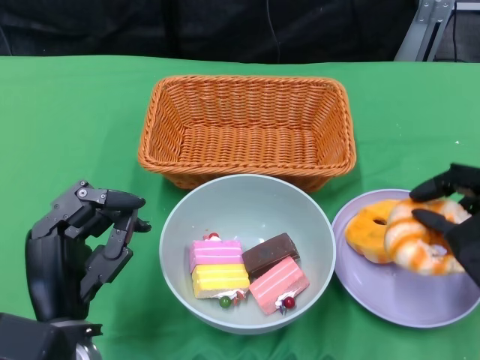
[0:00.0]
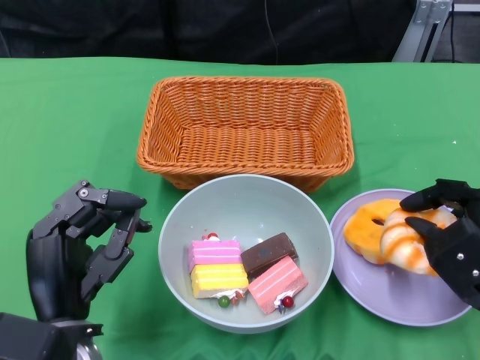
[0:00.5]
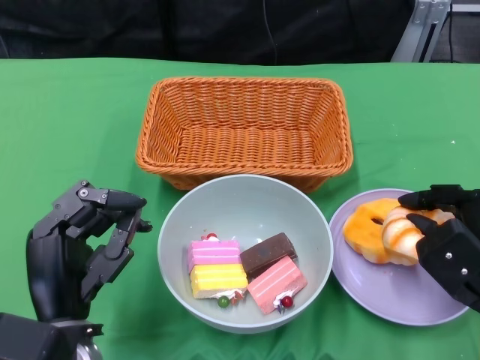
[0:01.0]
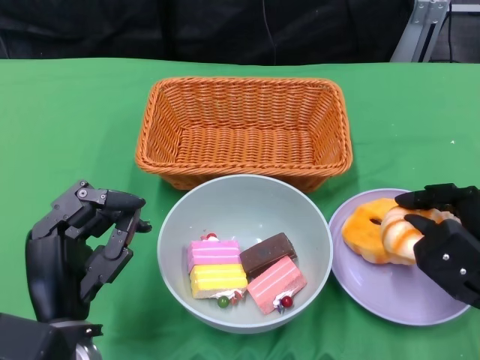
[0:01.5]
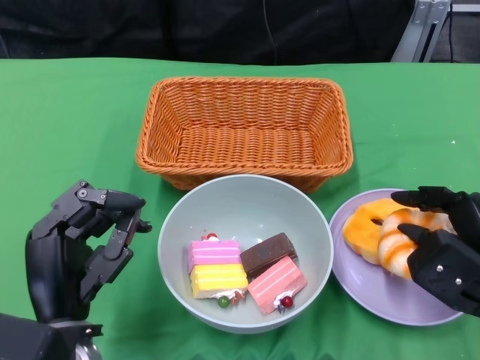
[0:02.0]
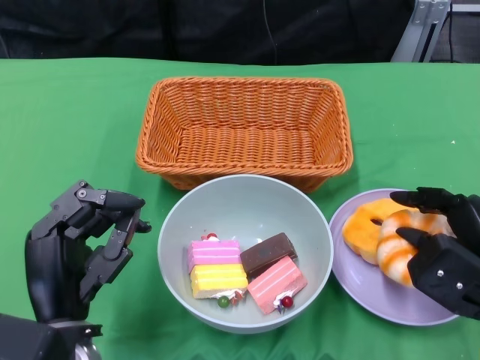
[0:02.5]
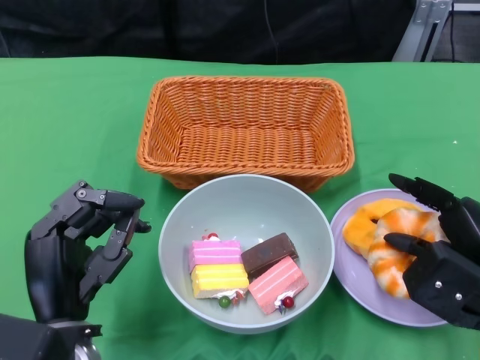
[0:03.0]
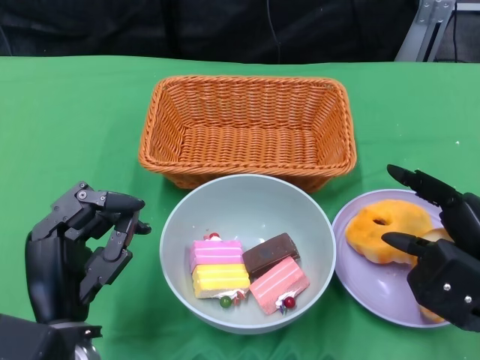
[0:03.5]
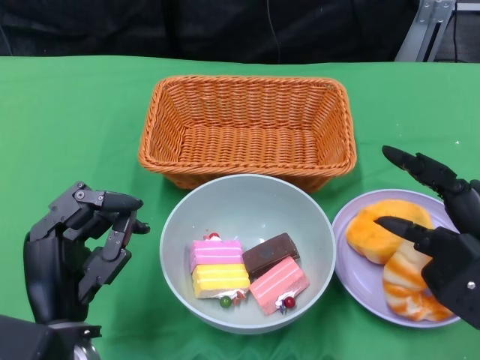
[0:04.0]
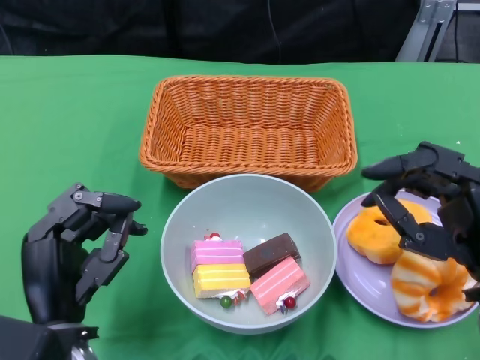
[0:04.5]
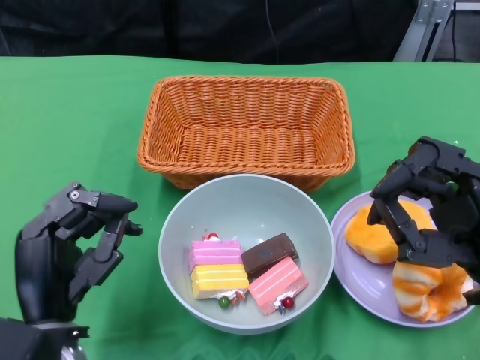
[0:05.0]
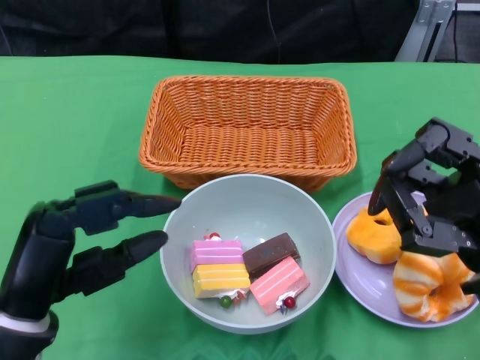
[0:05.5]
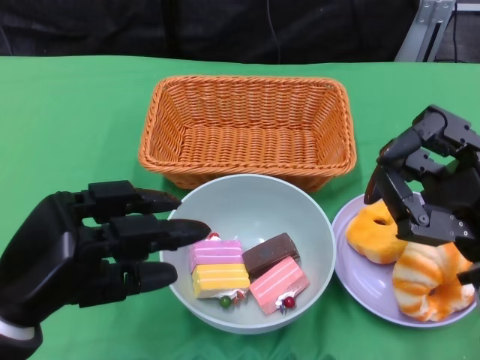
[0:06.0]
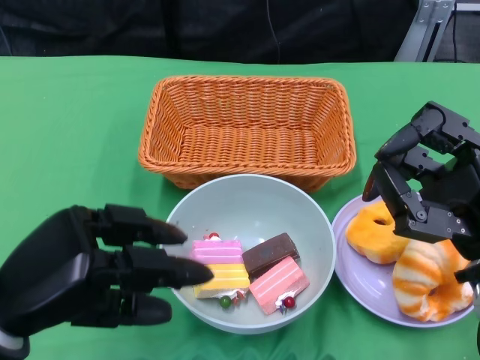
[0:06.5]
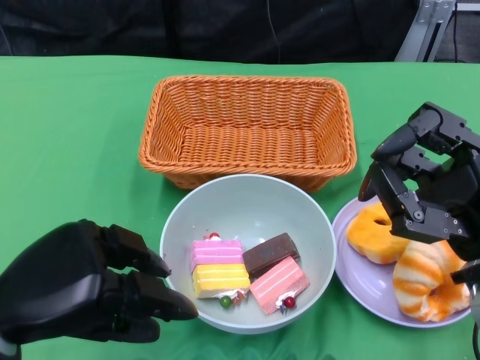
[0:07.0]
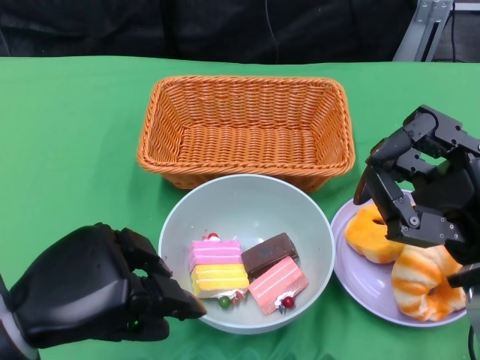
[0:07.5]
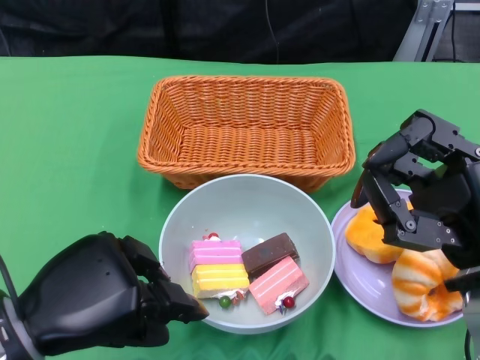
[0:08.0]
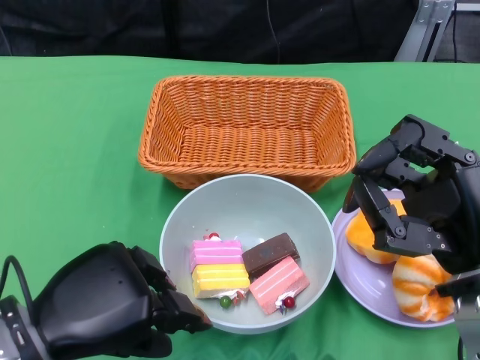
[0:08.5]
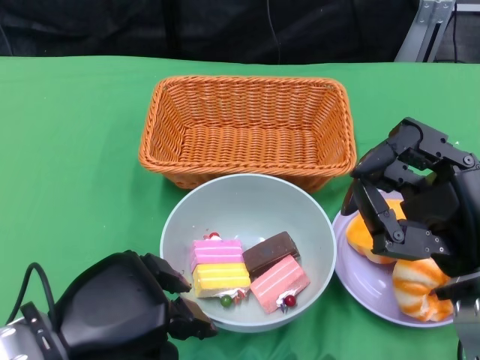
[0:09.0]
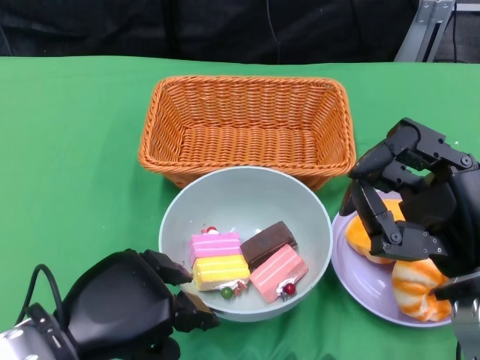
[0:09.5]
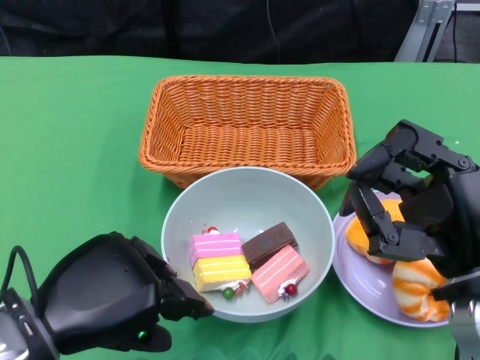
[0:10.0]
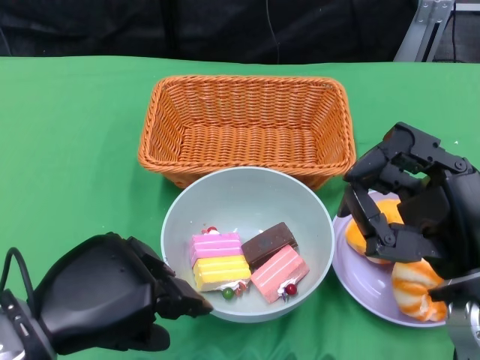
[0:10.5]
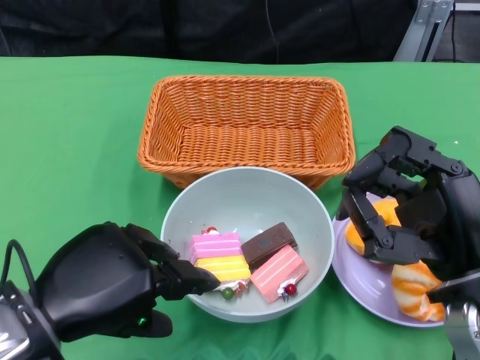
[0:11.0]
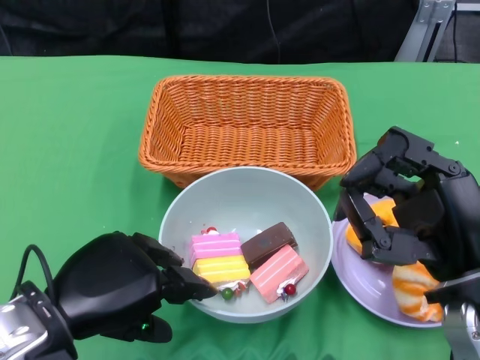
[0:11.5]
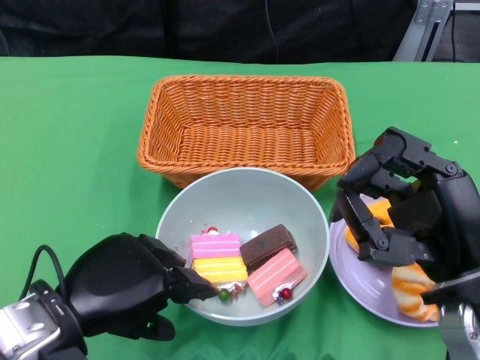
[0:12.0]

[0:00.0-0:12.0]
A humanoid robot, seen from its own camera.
Step, 0:00.0 to 0:04.5: Pick up the bread with the right gripper and place it on the plate.
0:00.0 to 0:02.0: The hands make only small movements.
0:02.0 to 0:04.0: The right hand travels upward by approximately 5 cm.
0:04.0 to 0:06.0: The left hand heads upward and to the left, covering some 10 cm.
0:08.0 to 0:12.0: The hands make only small movements.

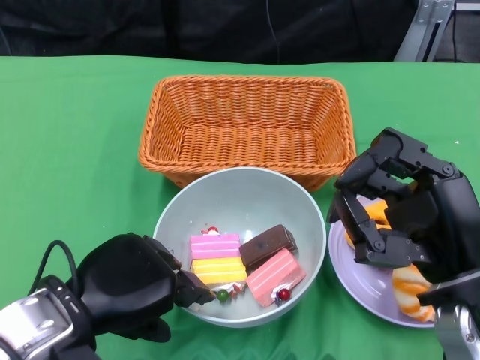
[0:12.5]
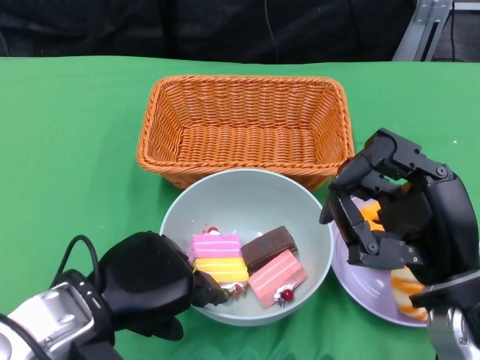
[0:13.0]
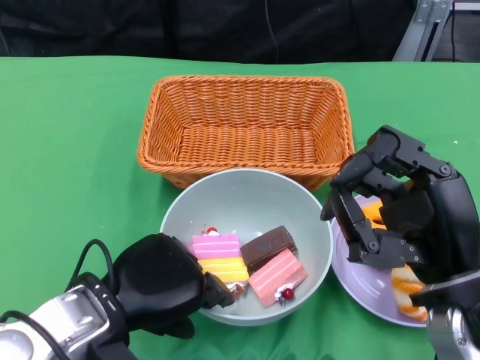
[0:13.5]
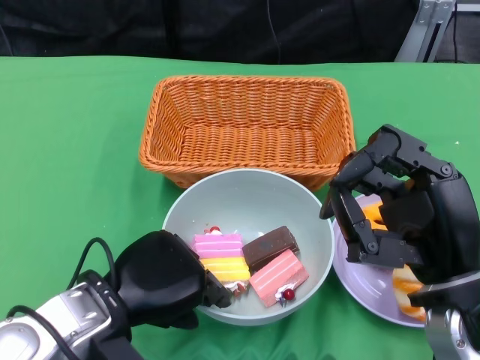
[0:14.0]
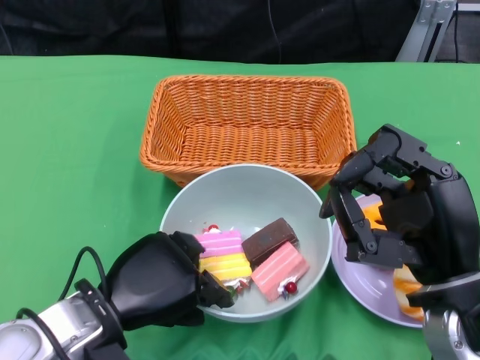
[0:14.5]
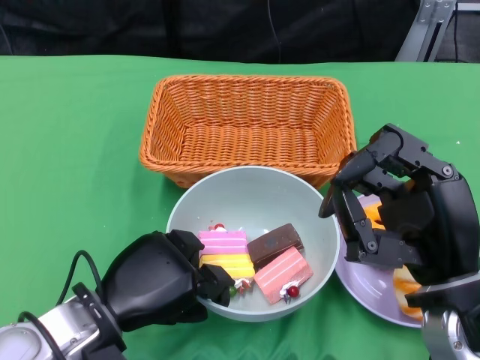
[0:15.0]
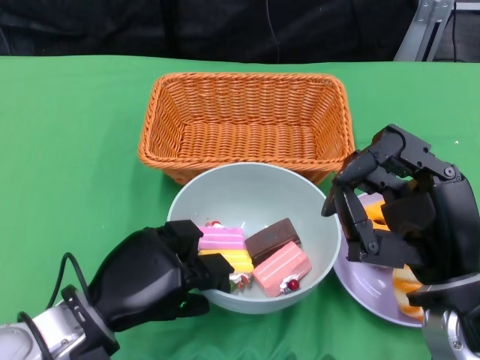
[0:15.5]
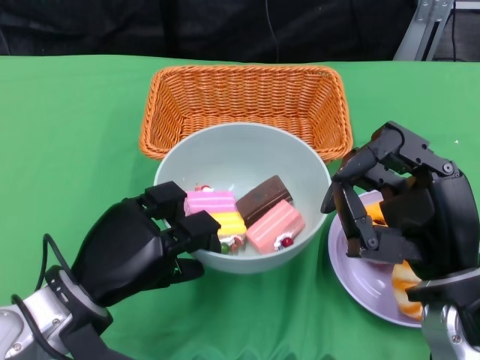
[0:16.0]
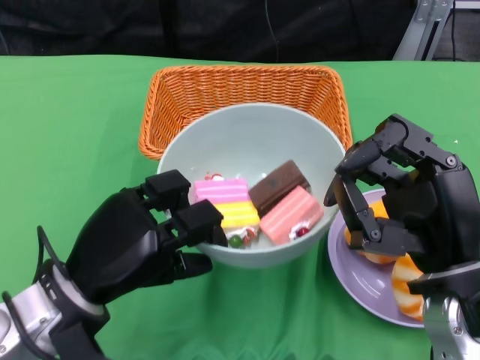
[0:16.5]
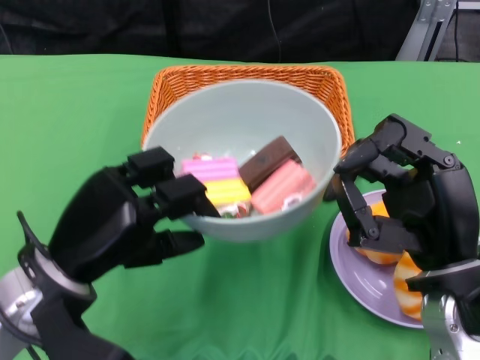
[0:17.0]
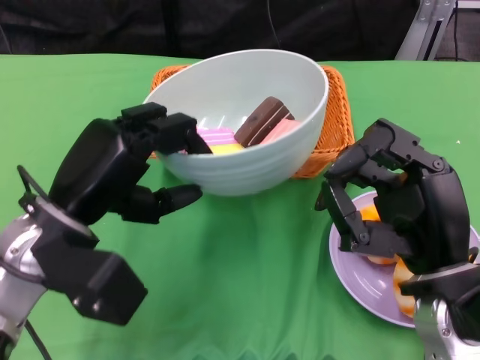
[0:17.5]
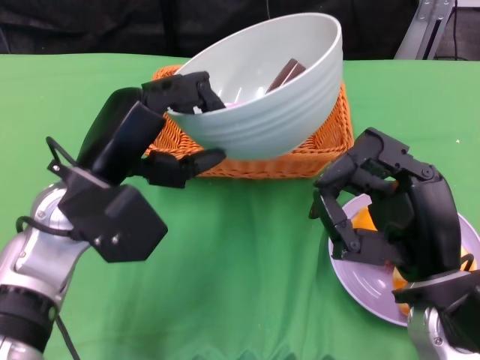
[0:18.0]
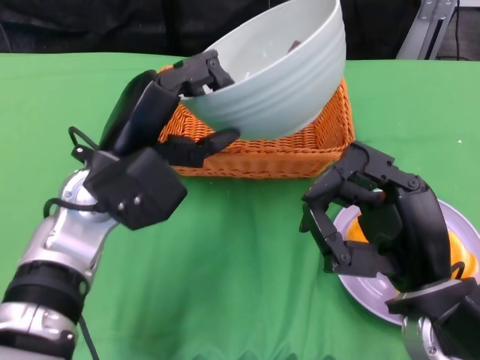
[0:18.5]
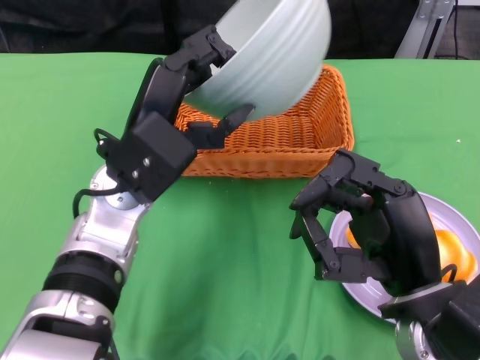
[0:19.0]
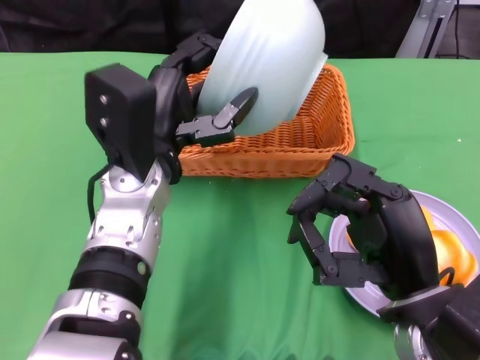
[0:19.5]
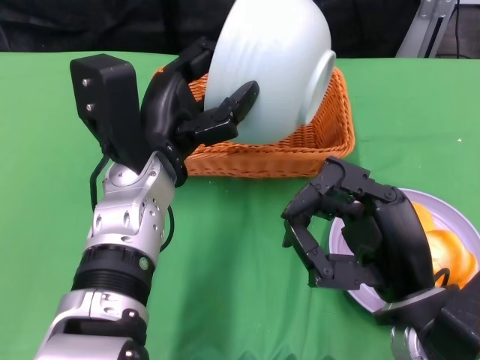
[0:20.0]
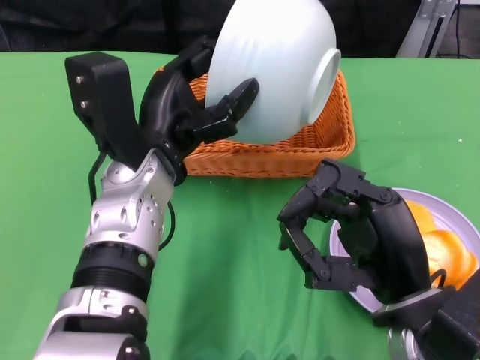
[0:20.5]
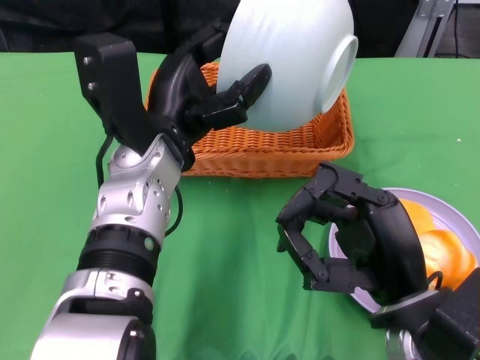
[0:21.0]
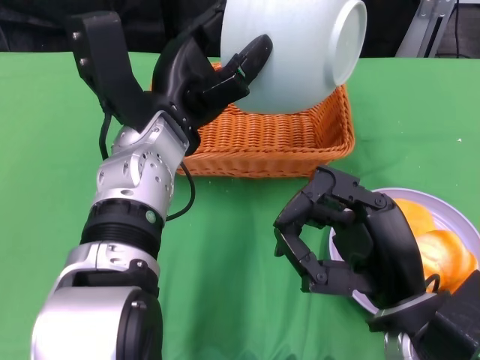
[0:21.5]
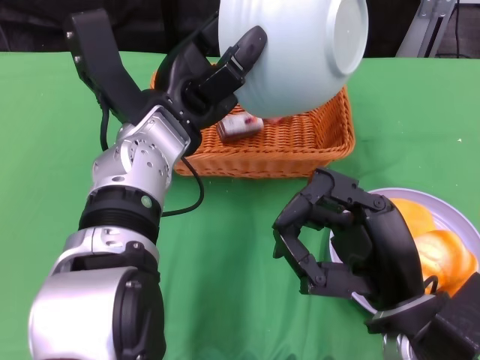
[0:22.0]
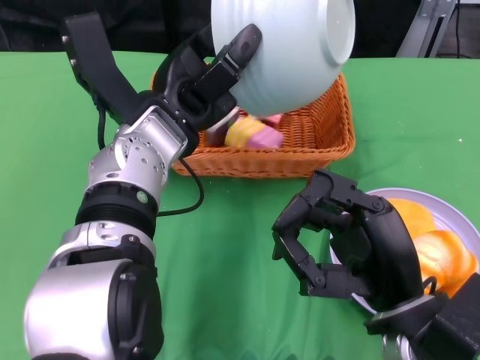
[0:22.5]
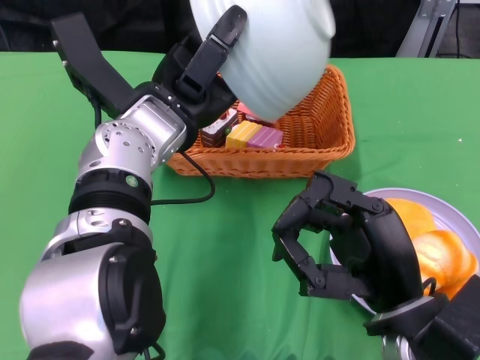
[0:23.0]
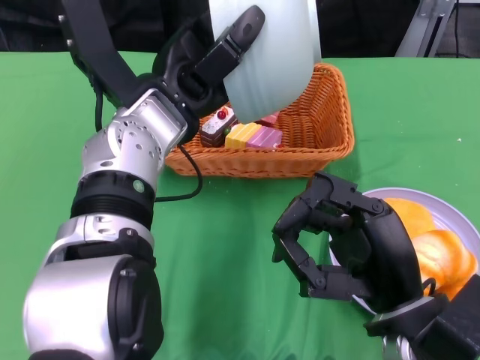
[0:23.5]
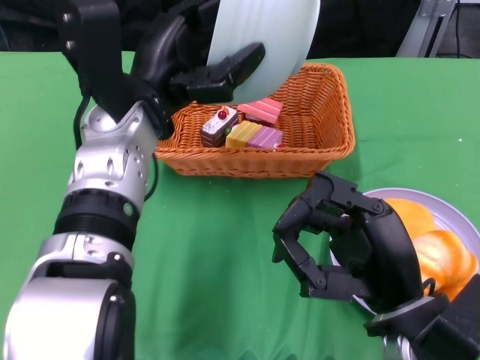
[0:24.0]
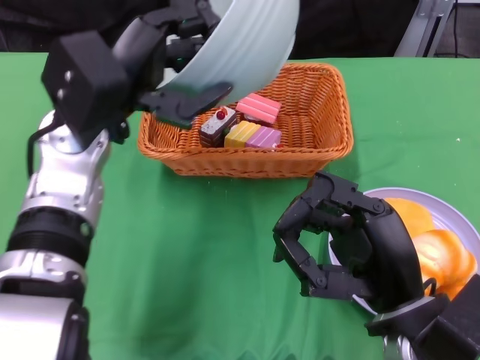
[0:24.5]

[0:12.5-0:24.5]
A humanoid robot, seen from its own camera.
Step, 0:14.5 to 0:23.5: Pour the cake into the basket with the left gripper.
0:12.5 to 0:14.5: The left hand shifts by some 5 cm.
0:16.5 to 0:18.5: The left hand shifts roughly 10 cm forward and upward.
0:22.5 to 0:24.5: The left hand travels to the left by roughly 5 cm.

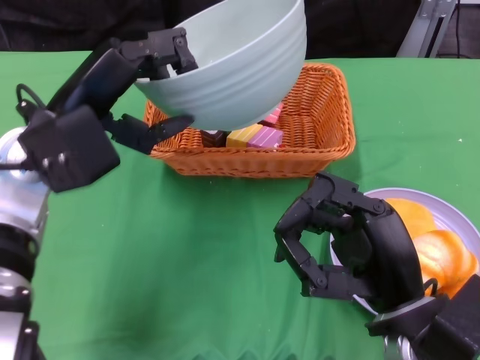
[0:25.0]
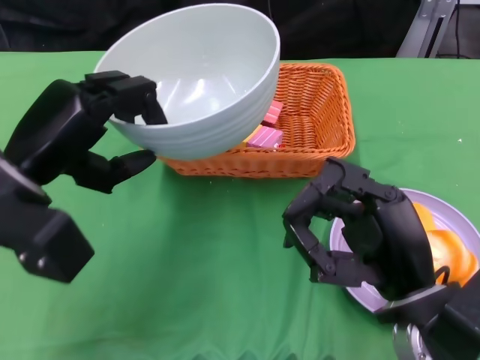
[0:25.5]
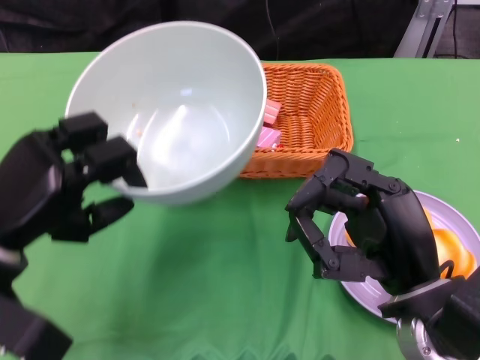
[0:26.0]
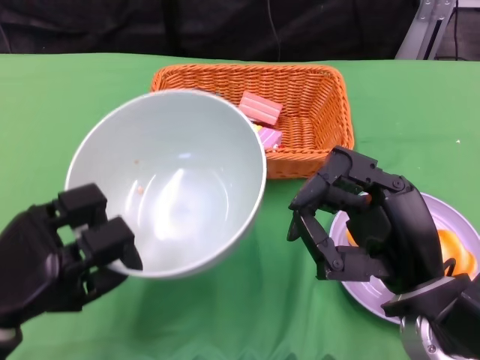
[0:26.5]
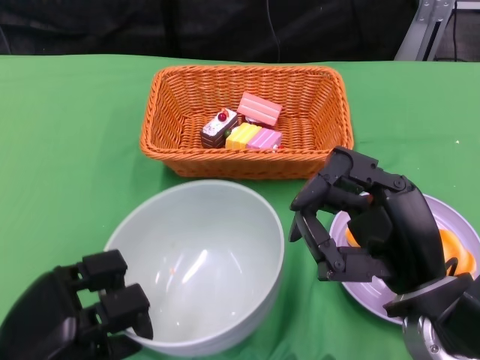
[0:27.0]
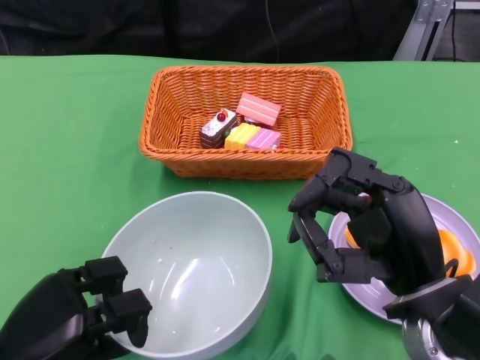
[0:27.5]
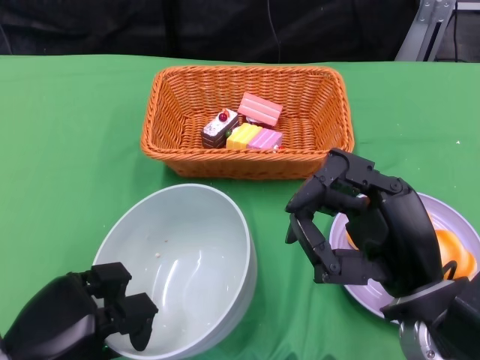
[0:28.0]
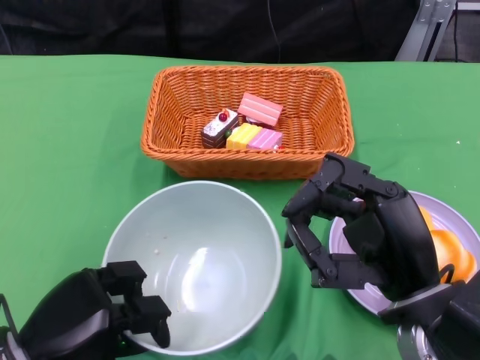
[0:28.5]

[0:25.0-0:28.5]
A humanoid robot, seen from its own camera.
0:25.0 to 0:27.0: The left hand moves backward, downward and to the left, some 20 cm.
0:27.0 to 0:28.5: The hands make only small movements.
